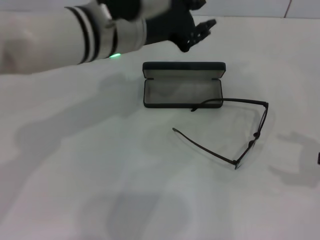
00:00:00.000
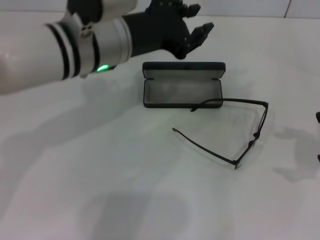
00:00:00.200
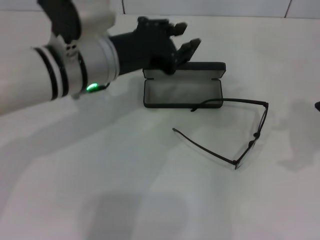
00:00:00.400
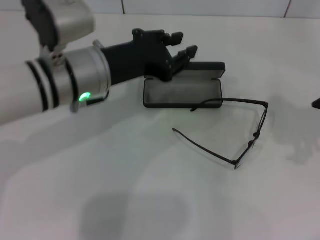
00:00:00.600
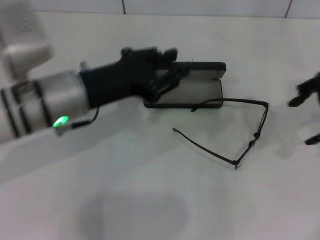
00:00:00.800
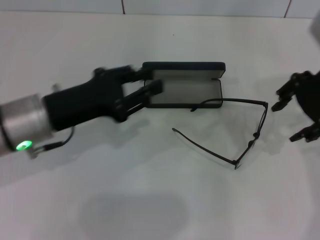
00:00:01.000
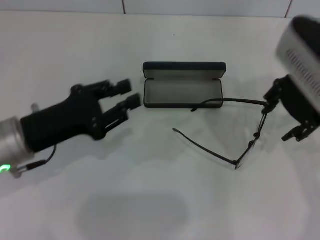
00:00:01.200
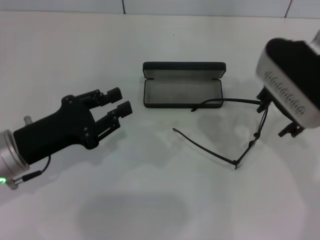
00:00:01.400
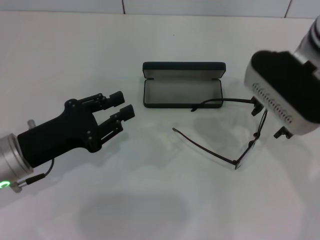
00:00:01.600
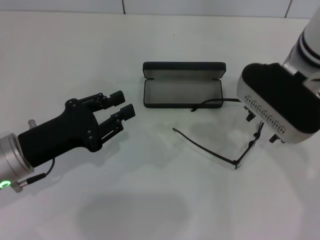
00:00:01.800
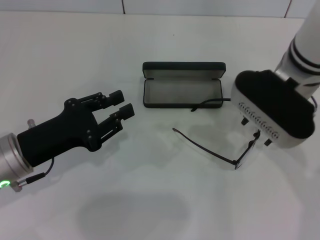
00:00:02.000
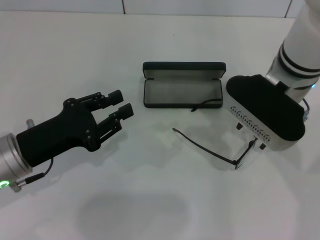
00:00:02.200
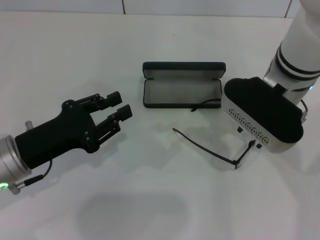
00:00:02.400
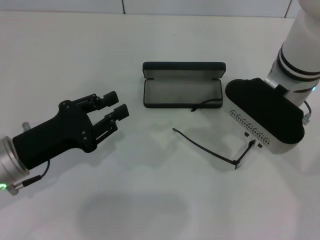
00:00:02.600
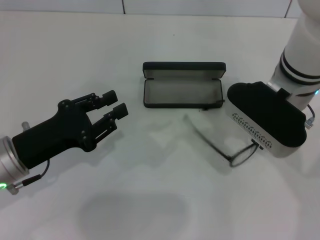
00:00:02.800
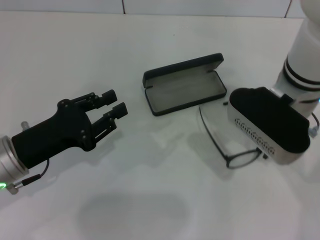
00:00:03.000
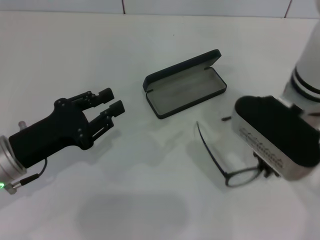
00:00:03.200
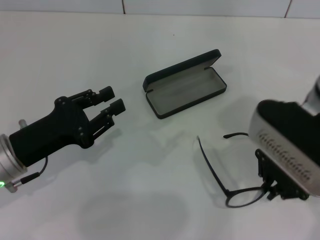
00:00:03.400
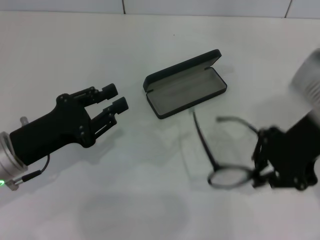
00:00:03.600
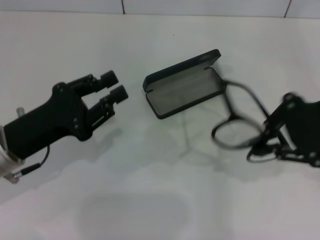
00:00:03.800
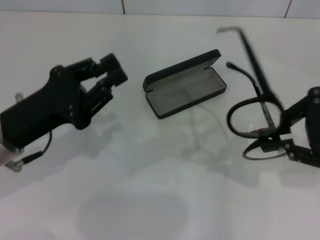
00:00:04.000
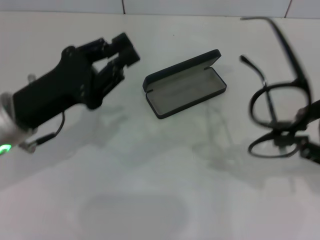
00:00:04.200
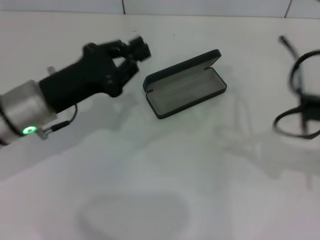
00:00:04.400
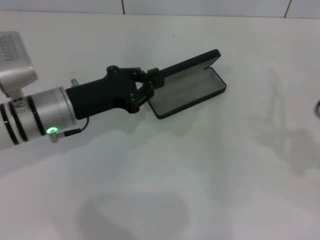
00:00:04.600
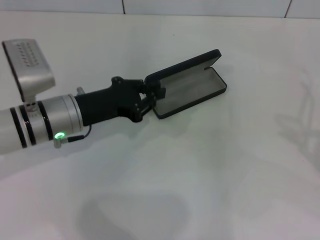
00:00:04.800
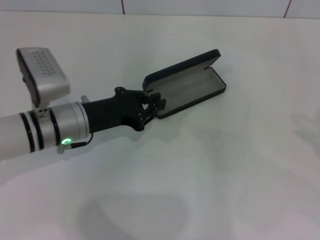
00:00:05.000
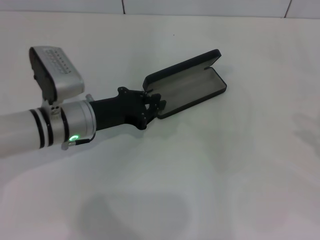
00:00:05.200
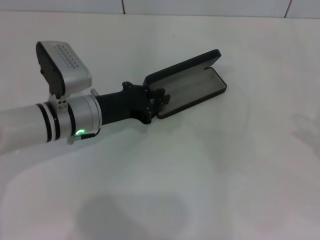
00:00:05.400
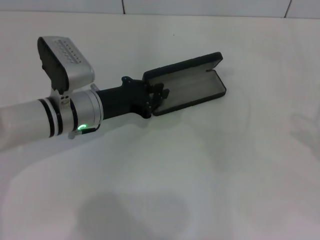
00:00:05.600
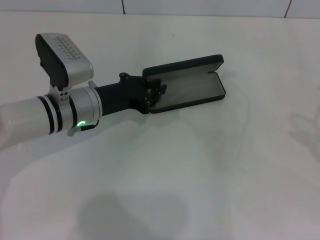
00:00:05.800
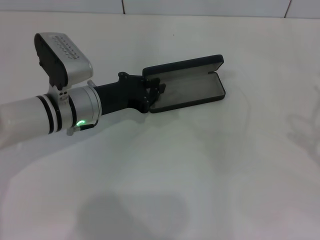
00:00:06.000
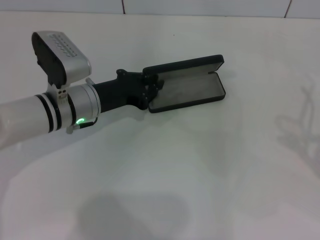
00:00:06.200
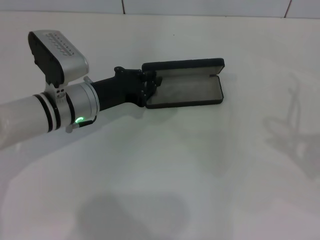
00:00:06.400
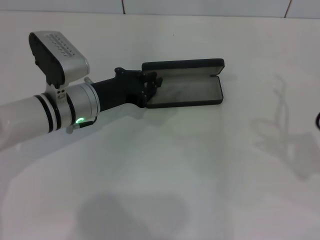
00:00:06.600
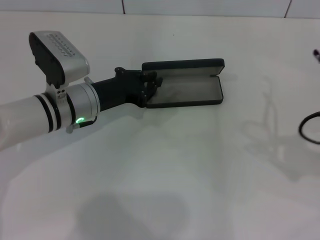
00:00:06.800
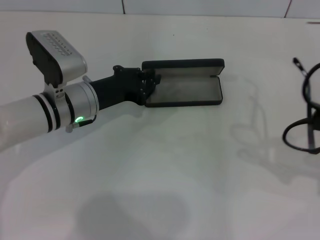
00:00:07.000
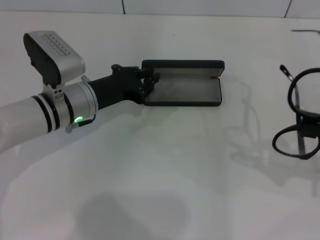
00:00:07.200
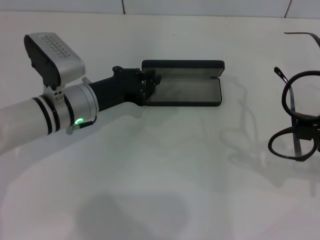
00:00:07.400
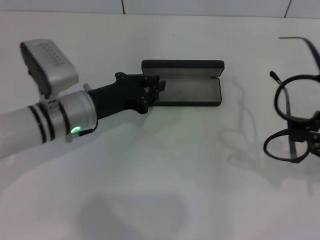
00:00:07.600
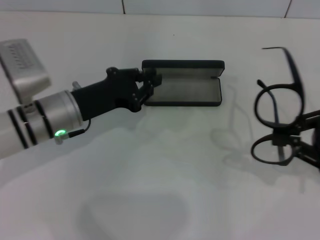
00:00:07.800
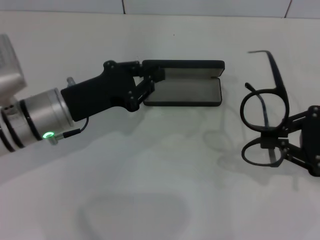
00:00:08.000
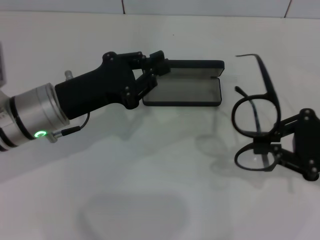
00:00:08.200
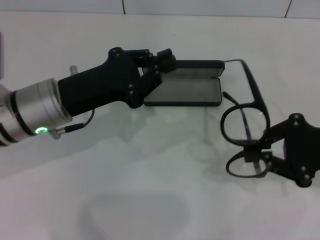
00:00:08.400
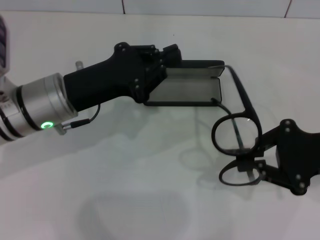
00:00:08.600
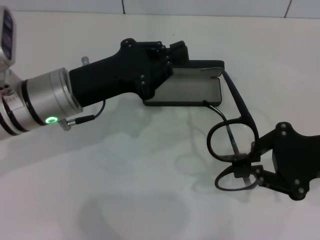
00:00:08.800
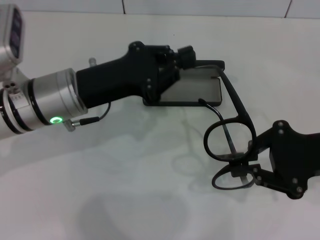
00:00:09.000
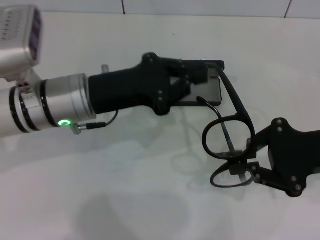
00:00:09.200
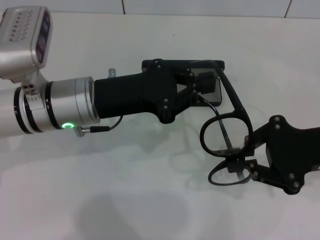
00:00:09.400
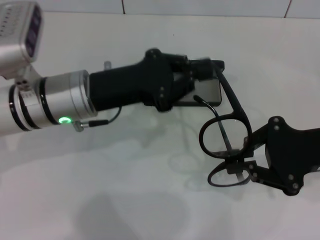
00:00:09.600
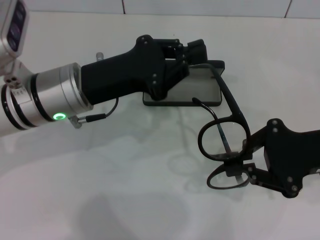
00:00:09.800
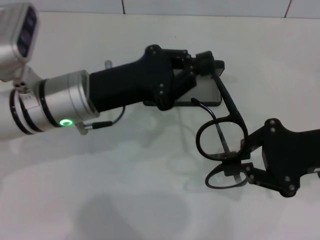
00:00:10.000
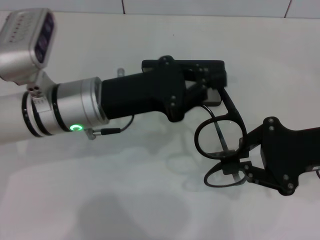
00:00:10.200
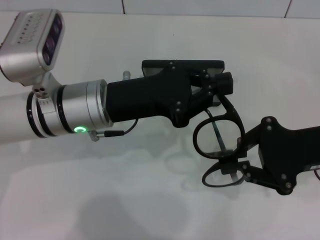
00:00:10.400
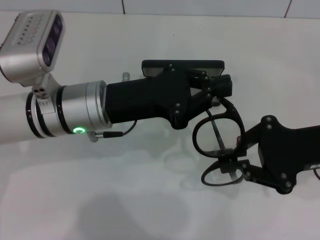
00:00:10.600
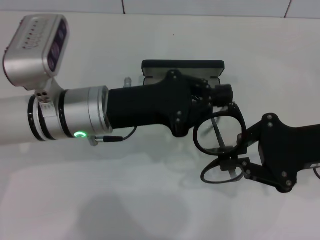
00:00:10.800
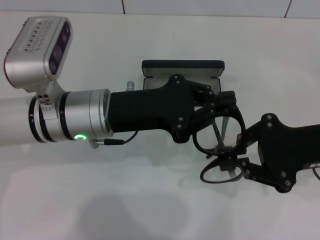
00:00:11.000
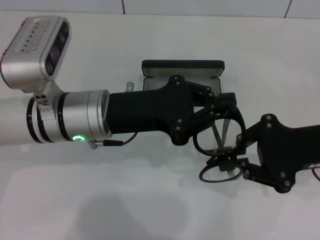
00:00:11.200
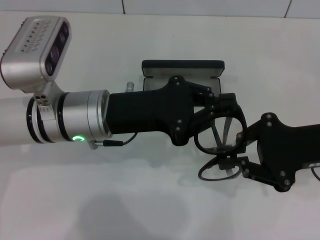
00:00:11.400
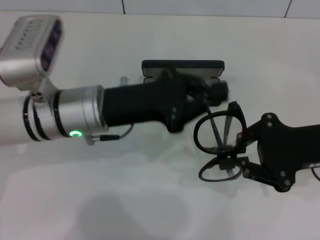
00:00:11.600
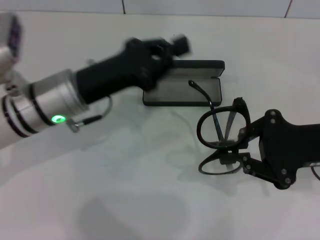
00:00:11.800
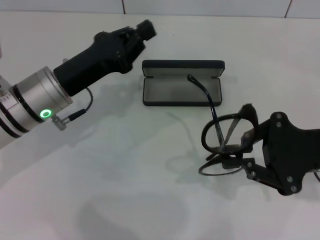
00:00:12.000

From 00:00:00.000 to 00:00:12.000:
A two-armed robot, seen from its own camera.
Step, from 00:00:00.000 to 00:00:02.800: Grab the eyeglass frame with your right hand.
From 00:00:00.000 to 00:00:01.600: The left gripper moves to the left, downward and backward, roughly 25 cm. The right gripper moves to the left and forward, about 25 cm.
From 00:00:01.600 to 00:00:03.000: The right gripper closes its fingers.
From 00:00:03.000 to 00:00:04.400: The right gripper goes roughly 25 cm to the right and backward; the left gripper goes approximately 5 cm forward.
From 00:00:04.400 to 00:00:06.000: The right gripper travels to the right and backward by approximately 10 cm; the left gripper goes roughly 5 cm forward.
From 00:00:06.000 to 00:00:07.600: The right gripper is displaced to the left and forward by some 10 cm.
From 00:00:07.600 to 00:00:09.000: The left gripper is displaced upward by approximately 5 cm, while the right gripper moves to the left, about 5 cm.
From 00:00:10.400 to 00:00:12.000: The left gripper shifts some 5 cm to the left.

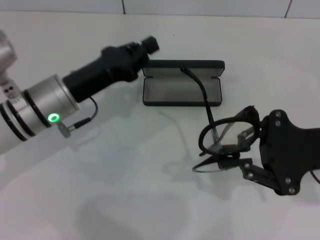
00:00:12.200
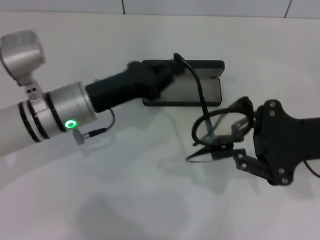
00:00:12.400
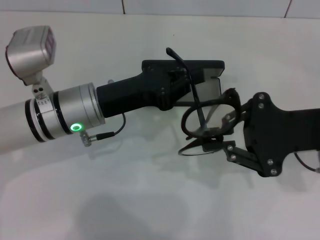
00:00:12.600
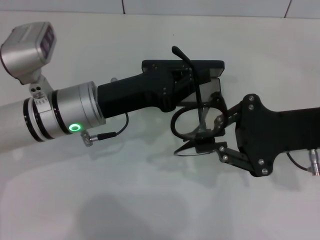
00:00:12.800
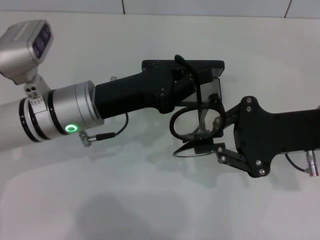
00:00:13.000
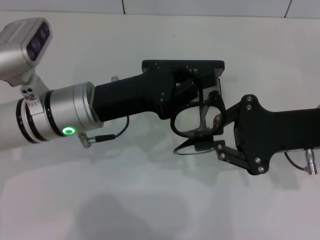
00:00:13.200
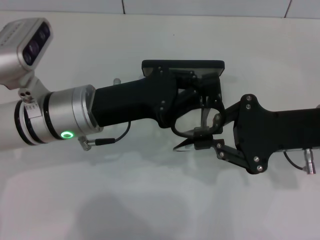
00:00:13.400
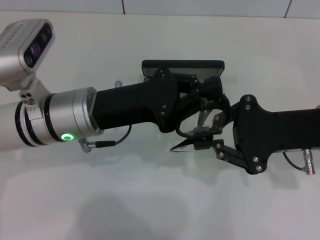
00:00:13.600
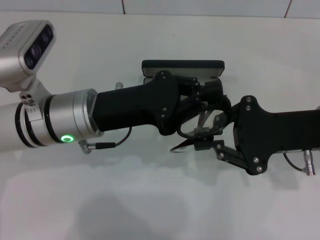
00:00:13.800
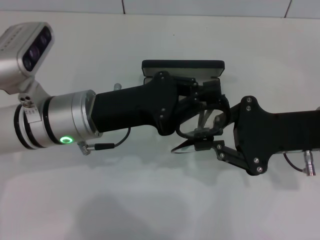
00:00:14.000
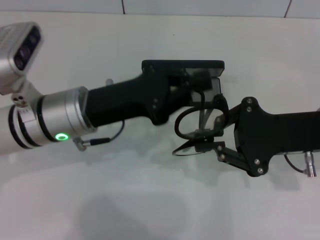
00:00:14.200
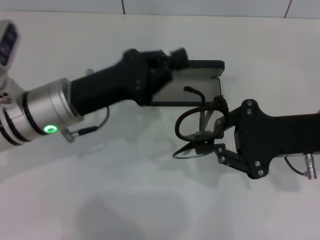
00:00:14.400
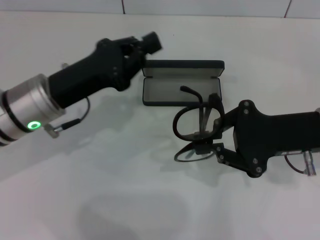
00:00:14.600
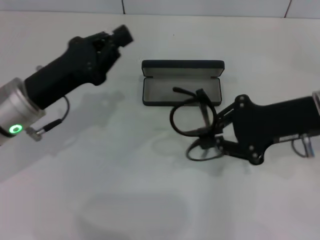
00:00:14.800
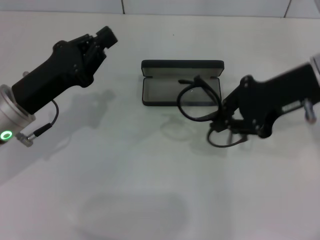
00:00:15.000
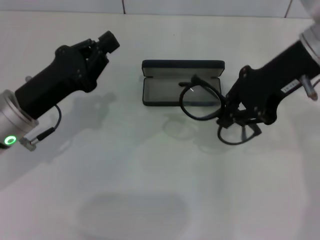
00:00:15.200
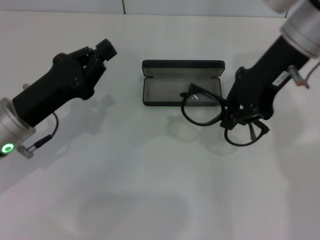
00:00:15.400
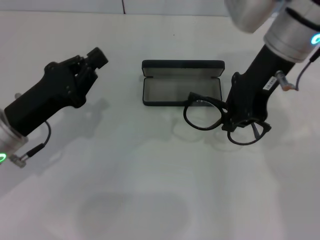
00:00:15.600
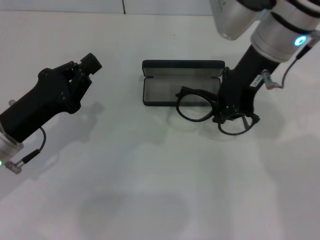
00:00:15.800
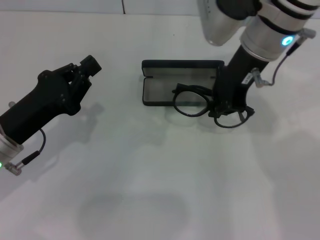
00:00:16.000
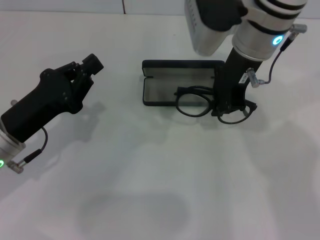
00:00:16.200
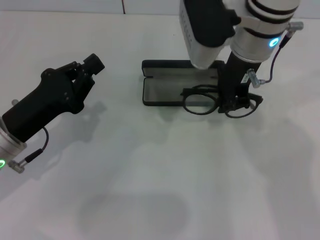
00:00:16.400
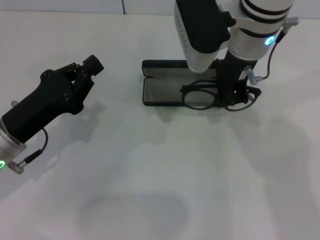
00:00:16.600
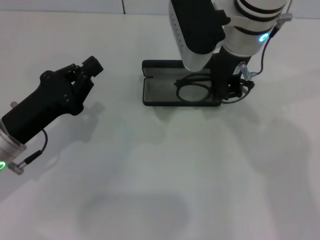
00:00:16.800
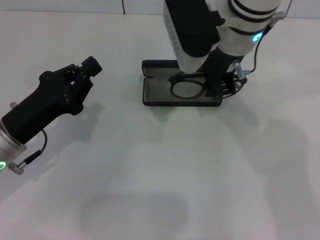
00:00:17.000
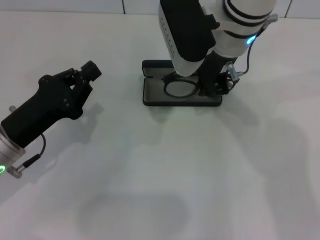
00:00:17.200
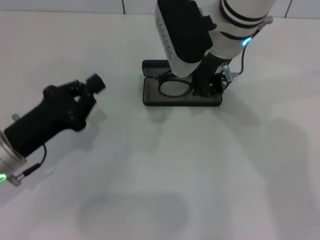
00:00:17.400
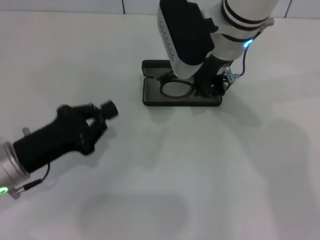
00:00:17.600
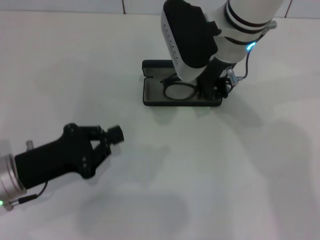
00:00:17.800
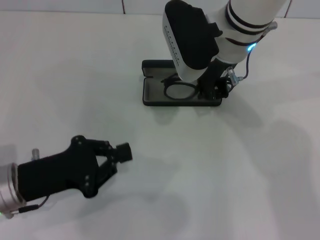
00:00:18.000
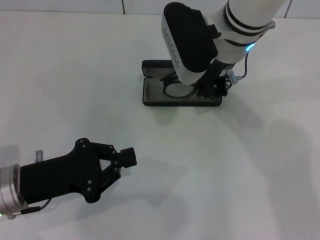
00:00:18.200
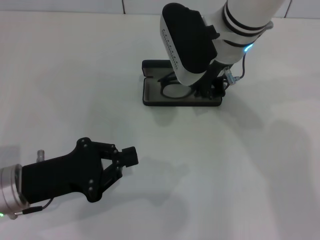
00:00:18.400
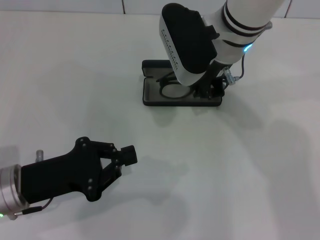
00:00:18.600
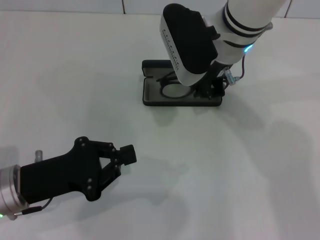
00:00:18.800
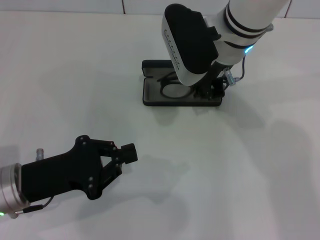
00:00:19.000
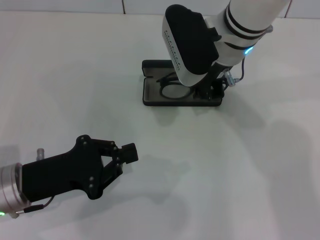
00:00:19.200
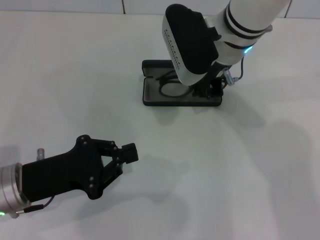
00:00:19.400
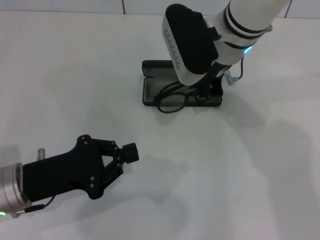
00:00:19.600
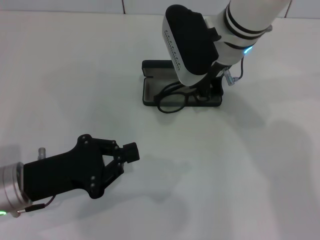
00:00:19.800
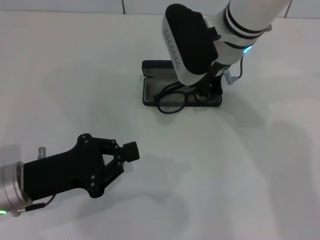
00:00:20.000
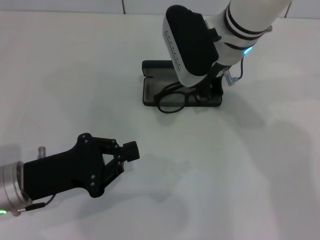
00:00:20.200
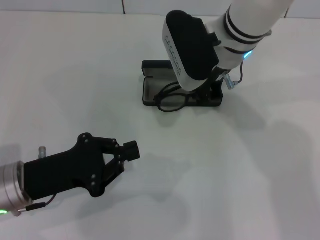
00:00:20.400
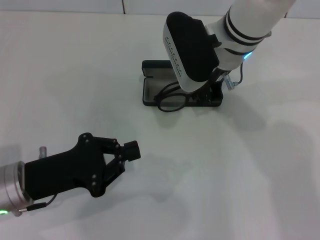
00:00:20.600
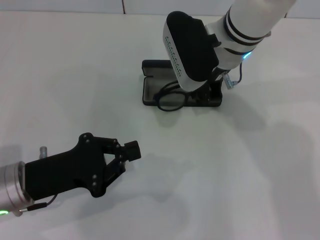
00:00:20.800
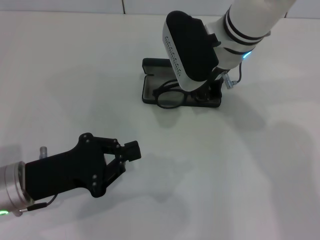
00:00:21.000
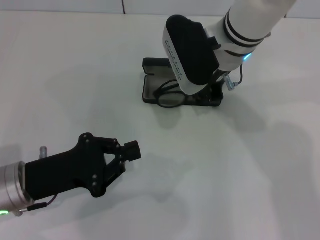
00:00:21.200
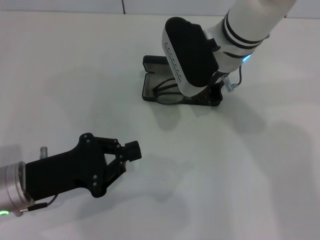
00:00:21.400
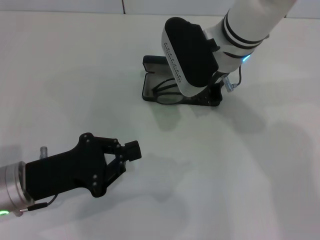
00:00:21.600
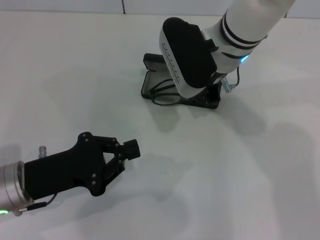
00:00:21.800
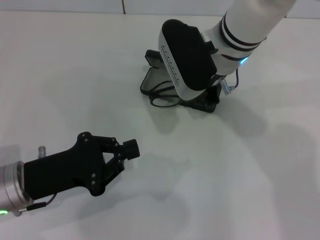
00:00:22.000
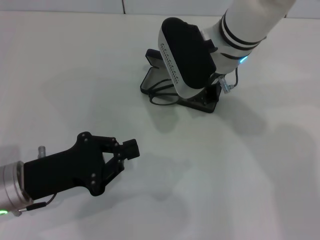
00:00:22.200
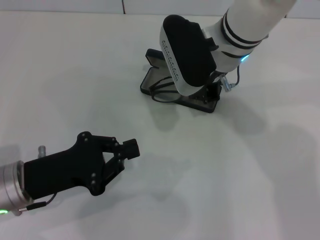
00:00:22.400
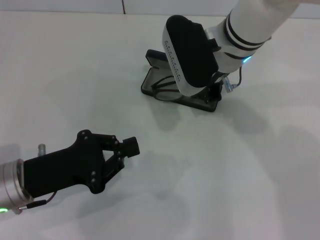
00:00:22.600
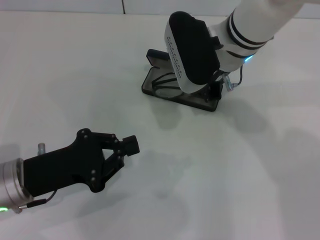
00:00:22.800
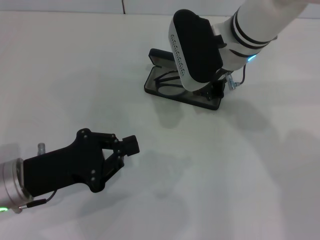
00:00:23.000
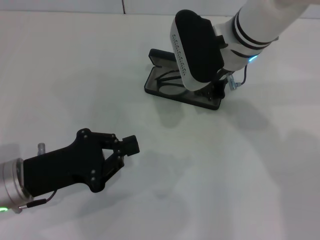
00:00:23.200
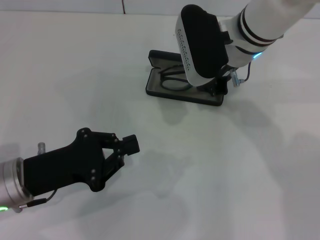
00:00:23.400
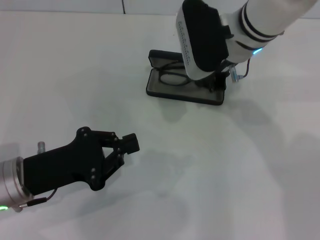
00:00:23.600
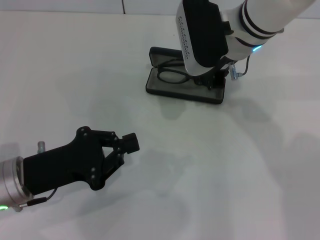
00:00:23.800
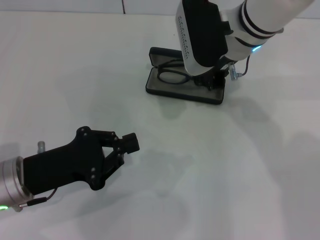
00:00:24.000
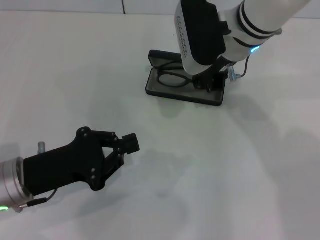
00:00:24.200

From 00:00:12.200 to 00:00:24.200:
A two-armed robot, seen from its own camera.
From 00:00:12.200 to 00:00:13.800: The left gripper shifts by some 5 cm.
From 00:00:13.800 to 00:00:15.200: The right gripper shifts approximately 10 cm upward and forward, while the left gripper shifts some 10 cm to the left.
From 00:00:15.200 to 00:00:16.600: The right gripper shifts about 10 cm to the left.
From 00:00:18.200 to 00:00:19.800: Neither gripper changes place.
From 00:00:19.800 to 00:00:21.200: Both grippers stay about where they are.
From 00:00:21.200 to 00:00:22.600: Both grippers stay about where they are.
From 00:00:22.600 to 00:00:24.200: The grippers make only small movements.
